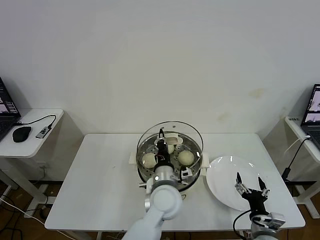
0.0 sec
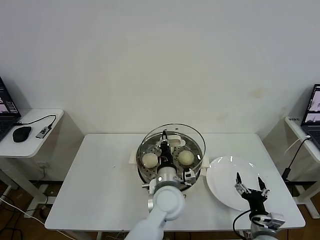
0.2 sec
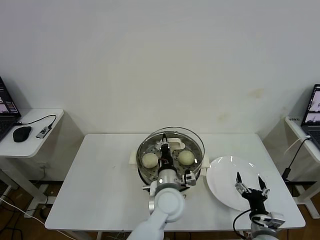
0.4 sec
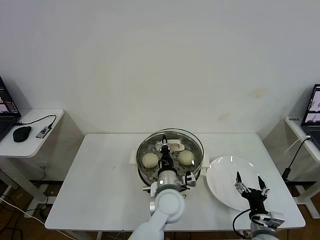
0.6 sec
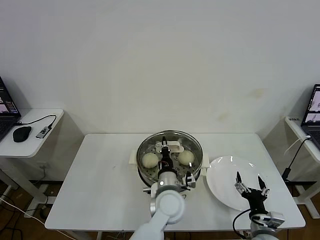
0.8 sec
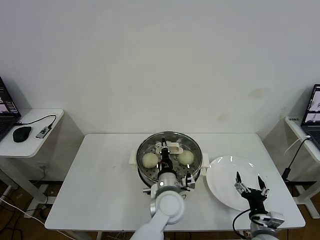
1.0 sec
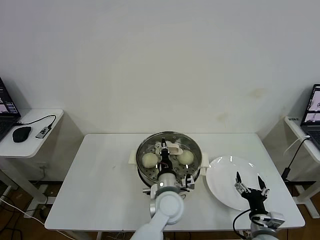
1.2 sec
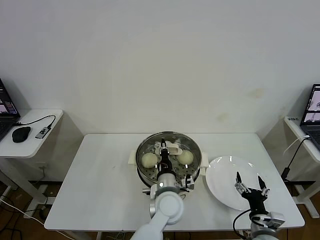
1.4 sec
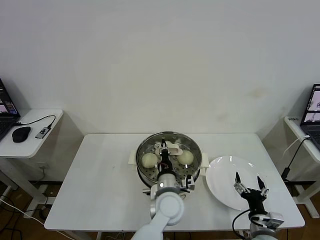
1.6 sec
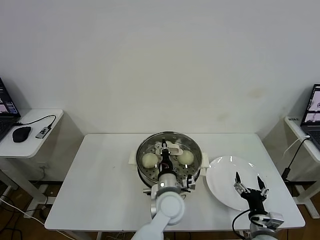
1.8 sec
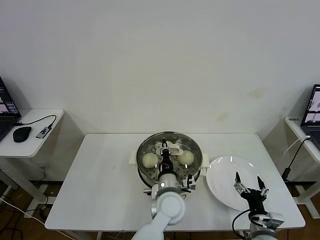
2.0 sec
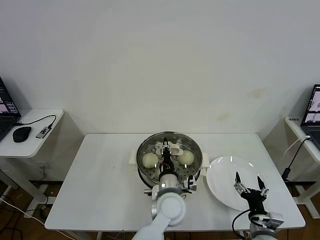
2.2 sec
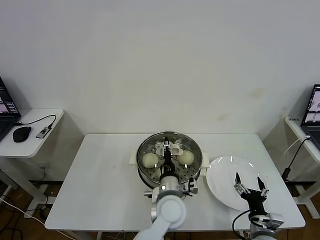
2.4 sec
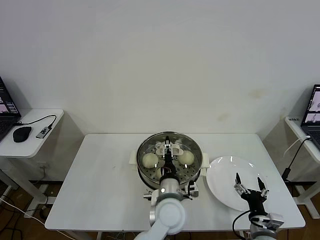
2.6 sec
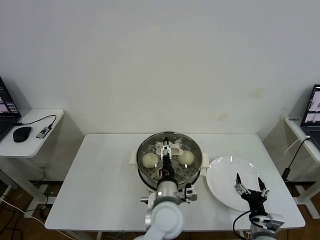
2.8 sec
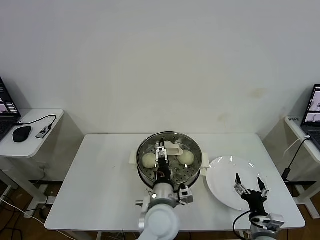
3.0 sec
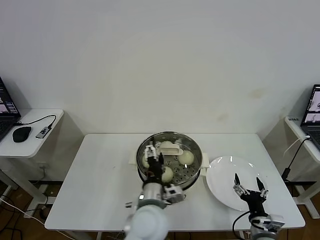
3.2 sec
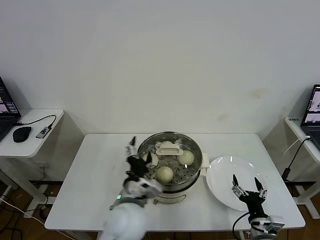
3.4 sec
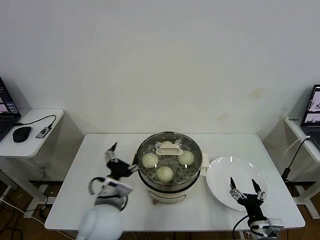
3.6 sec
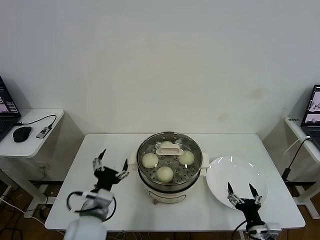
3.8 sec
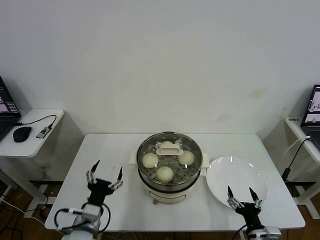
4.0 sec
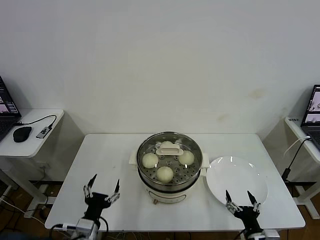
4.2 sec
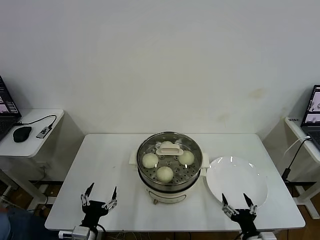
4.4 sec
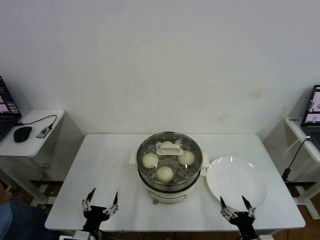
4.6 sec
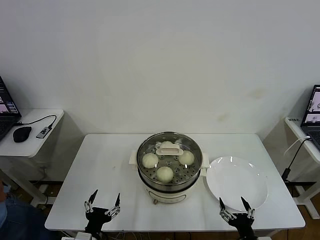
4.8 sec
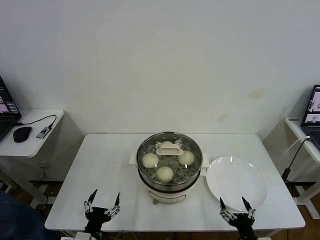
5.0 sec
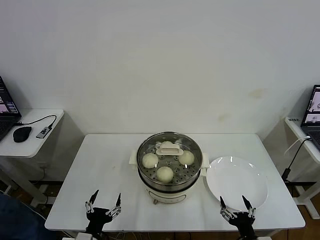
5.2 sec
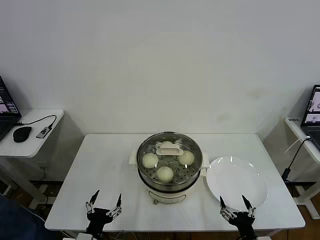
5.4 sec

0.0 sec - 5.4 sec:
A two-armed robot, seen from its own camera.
Task of the whole recording: take steamed baozi put them in steamer then cover it.
Step, 0.0 sec - 3.0 sec: Place the pot lid on the steamer with left gripper.
0.0 sec - 1.4 sec: The grippers make only small movements.
1.4 sec - 2.8 sec: The left gripper opens its fingers.
2.8 sec - 4.0 sec: The left gripper moves to the left, approximately 25 cm.
4.0 sec - 5.4 sec: The left gripper is displaced backward and downward by roughly 10 cm.
